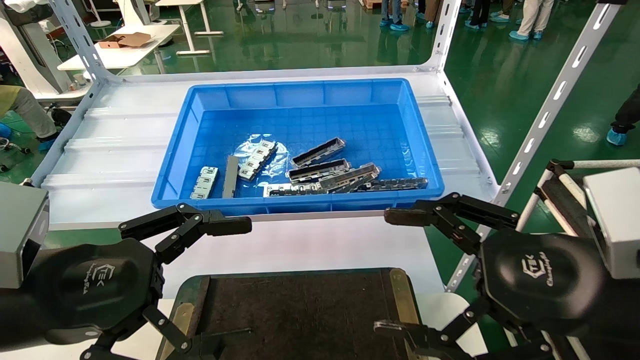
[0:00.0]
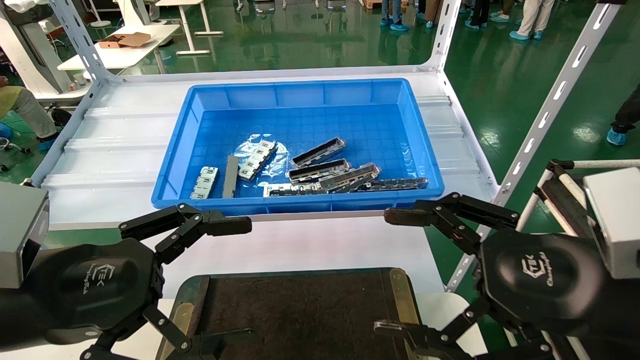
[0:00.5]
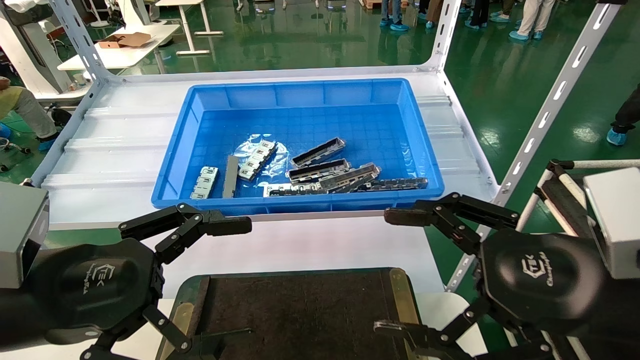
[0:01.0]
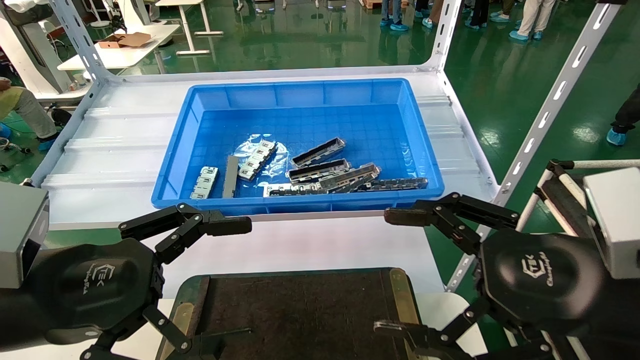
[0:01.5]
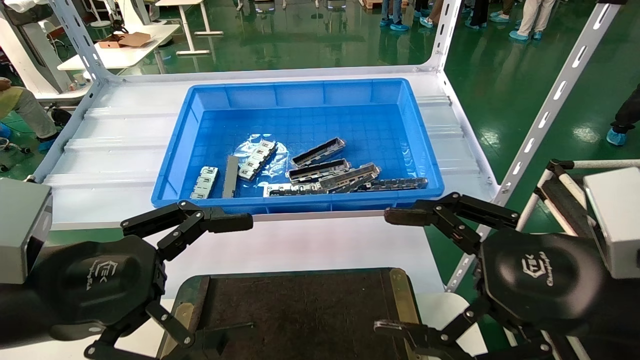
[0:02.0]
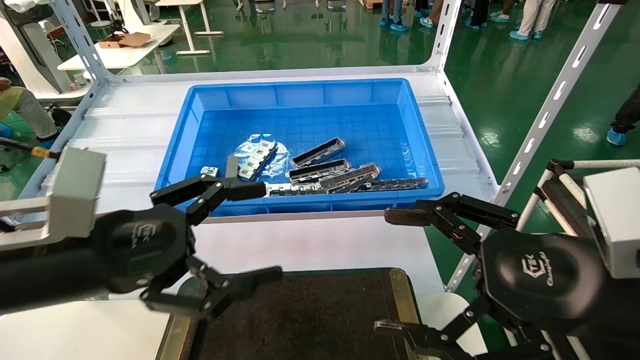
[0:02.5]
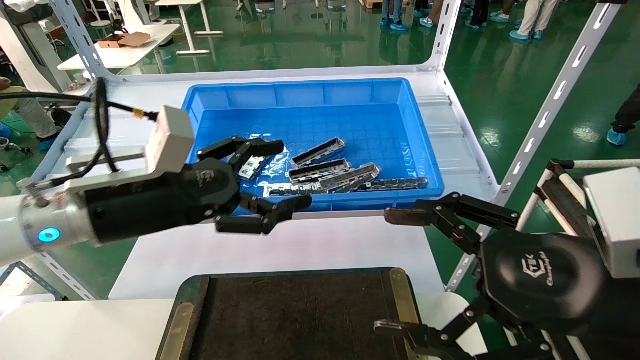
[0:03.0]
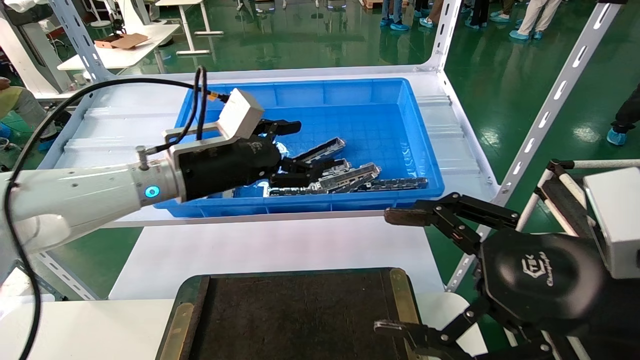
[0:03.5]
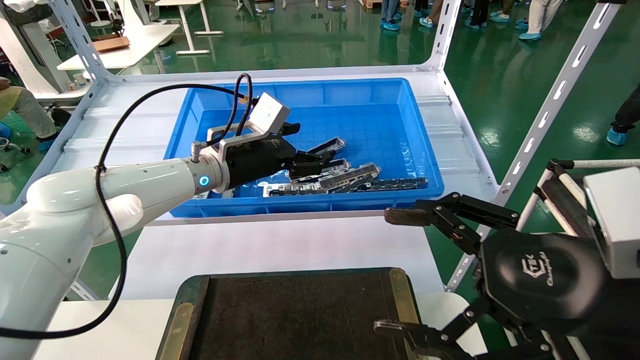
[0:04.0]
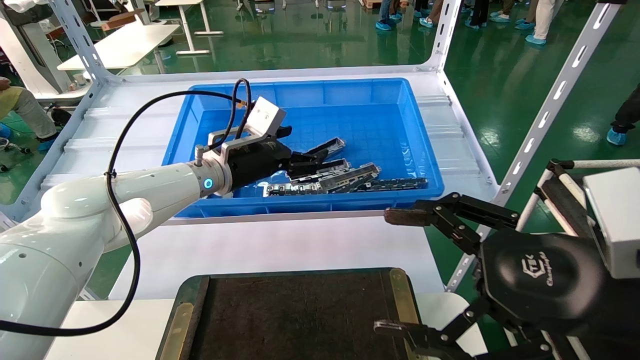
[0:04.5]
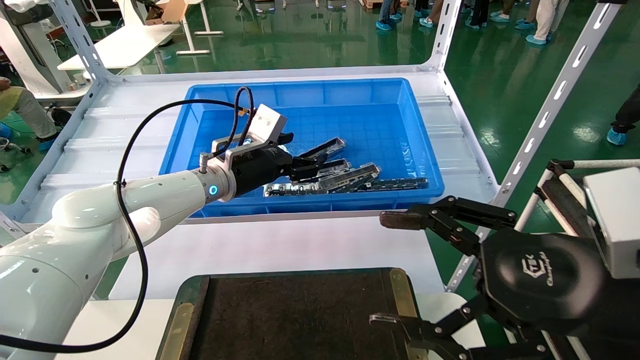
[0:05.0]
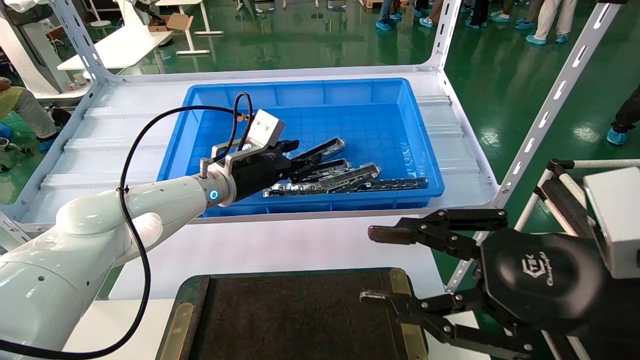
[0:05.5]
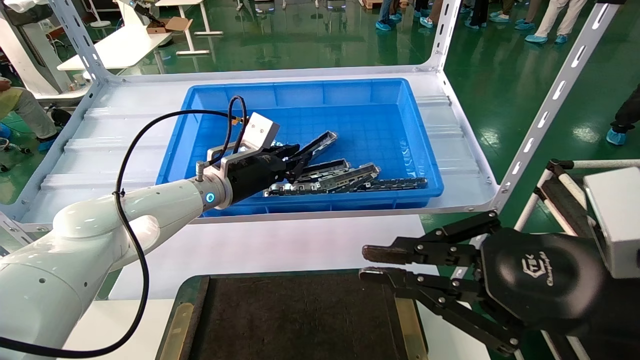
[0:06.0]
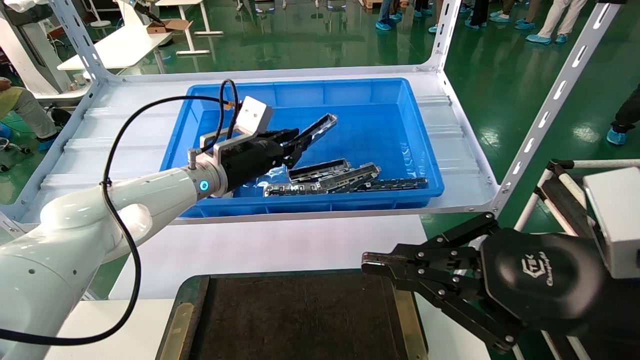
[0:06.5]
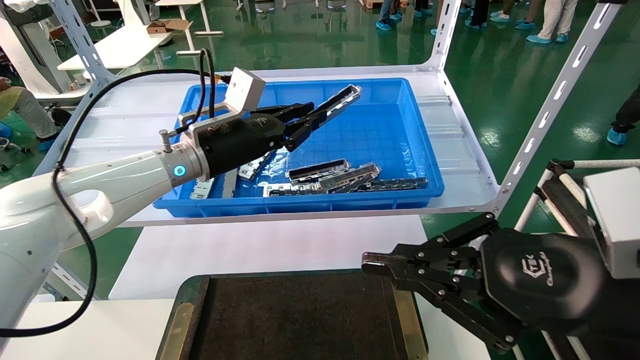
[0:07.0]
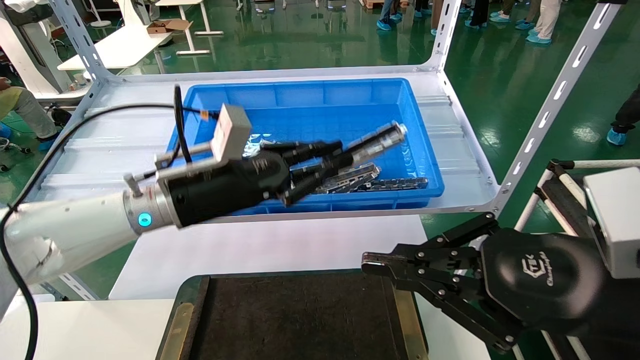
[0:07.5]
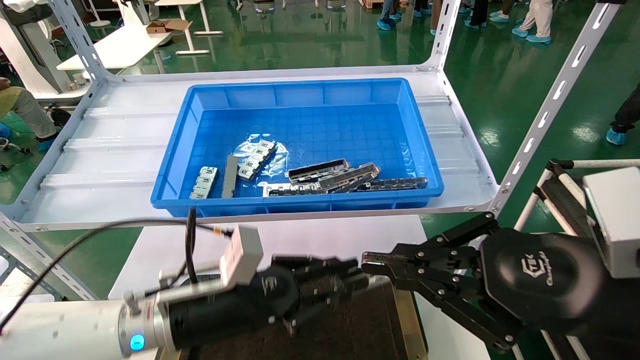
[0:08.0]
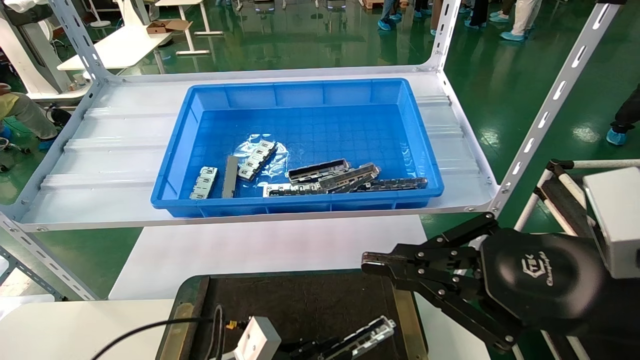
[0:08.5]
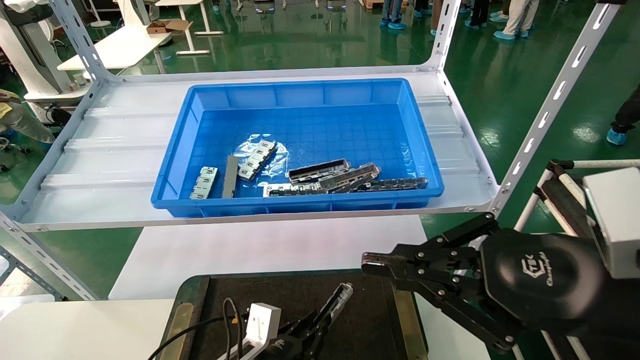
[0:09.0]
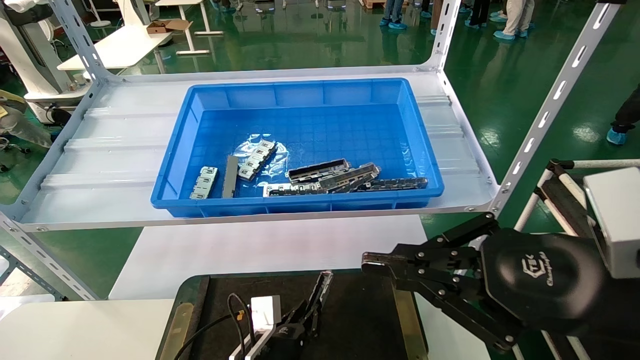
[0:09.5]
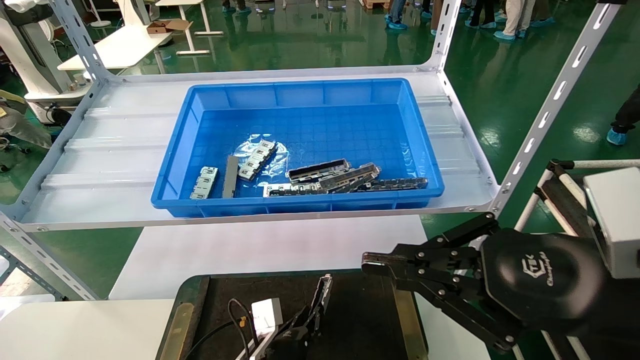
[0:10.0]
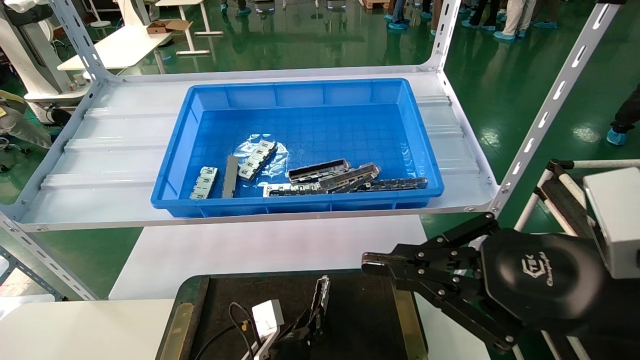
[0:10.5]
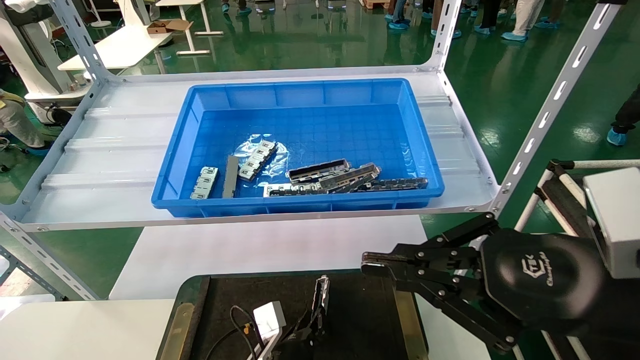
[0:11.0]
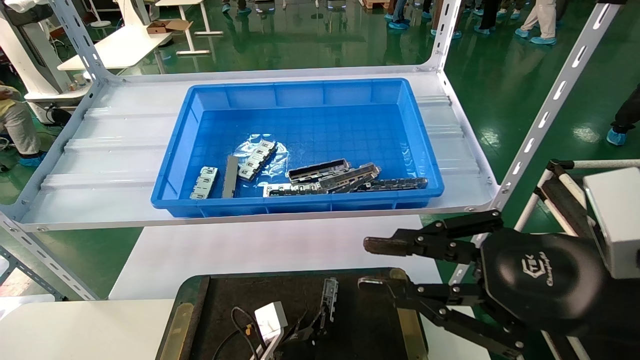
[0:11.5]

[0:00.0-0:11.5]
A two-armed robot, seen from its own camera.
Task of the whole recording: Grasp the part with one hand and place it on the black container.
Step, 0:02.5 to 0:05.5: Pick up the front USB bracket from the feeding area.
Step, 0:06.0 to 0:11.0: Place the front USB bracket into the box.
0:00.0 to 0:02.0: Both grippers stay about where they are.
0:02.0 to 0:04.0: The left gripper is displaced forward and to the right by roughly 30 cm.
0:04.0 to 0:06.0: The left gripper closes up. The right gripper closes.
0:06.0 to 0:07.5: The left gripper heads backward, covering some 10 cm.
0:07.5 to 0:09.5: The left gripper goes about 30 cm downward.
0:09.5 to 0:11.5: There are only small adjustments of the grippers.

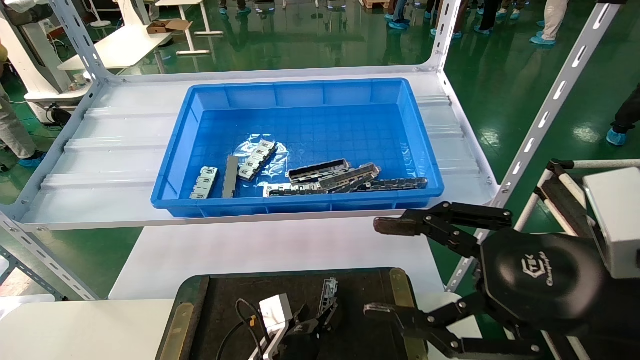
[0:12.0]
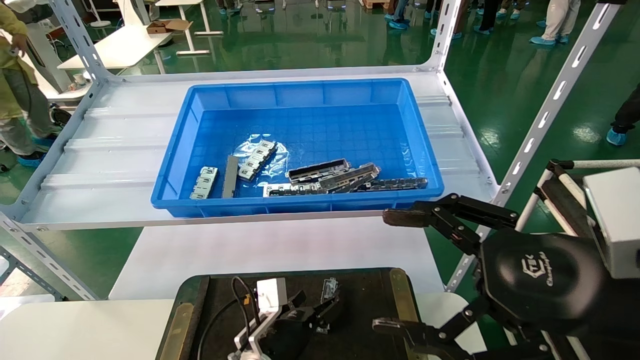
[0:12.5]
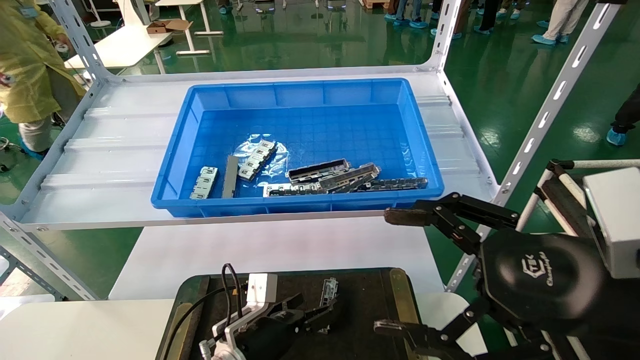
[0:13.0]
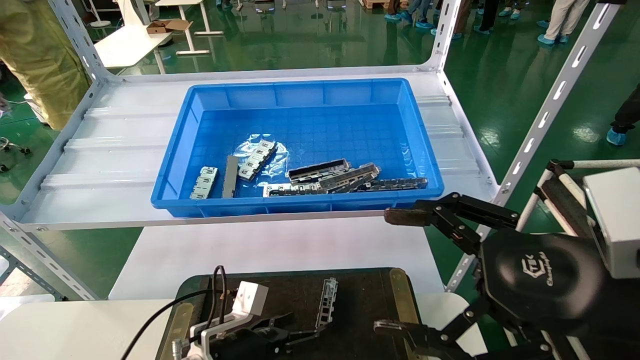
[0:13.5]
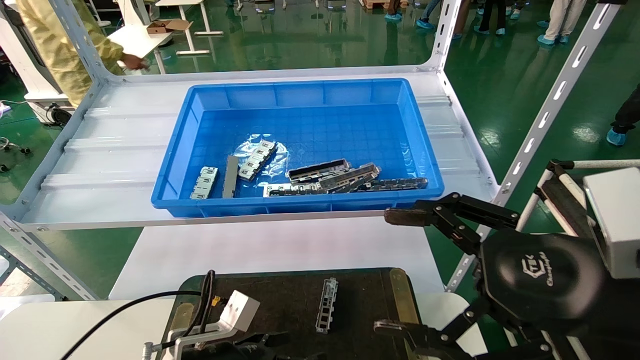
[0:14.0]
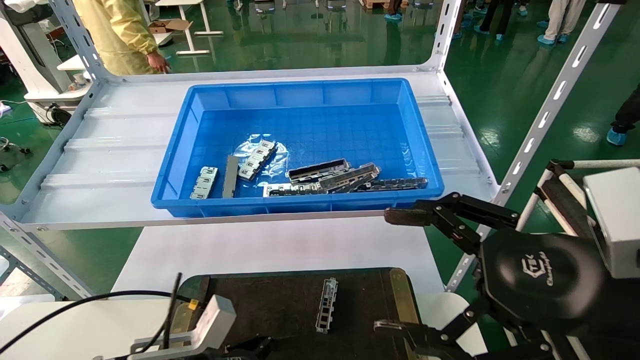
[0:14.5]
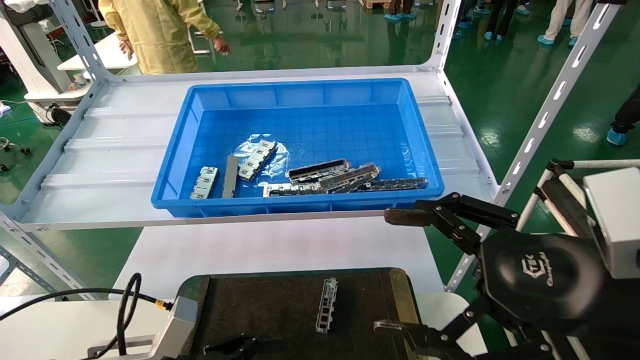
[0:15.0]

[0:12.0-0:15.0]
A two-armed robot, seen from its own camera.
Task of the whole recording: Grasp the part with one hand and place it on the black container.
0:12.0 to 0:13.5: The right gripper opens up. The left gripper shifts roughly 10 cm to the left and upward, and opens up.
0:13.5 to 0:15.0: The left gripper heads to the left, backward and upward, covering roughly 15 cm.

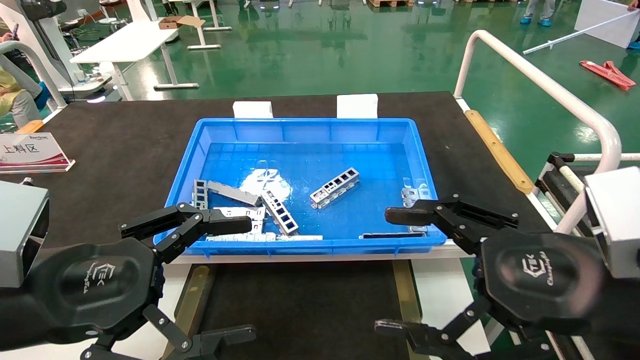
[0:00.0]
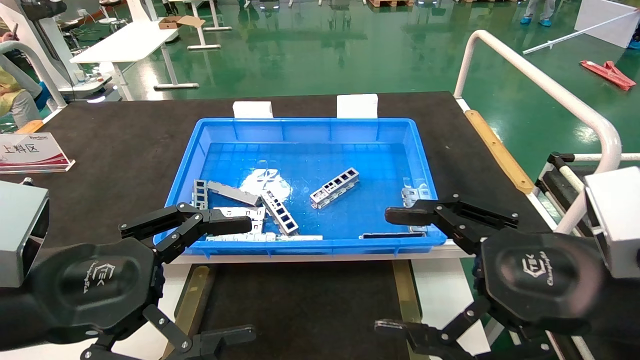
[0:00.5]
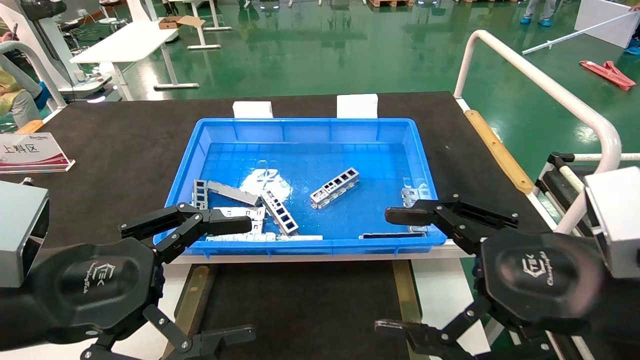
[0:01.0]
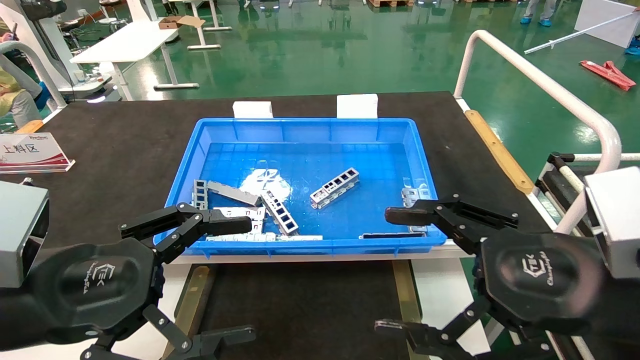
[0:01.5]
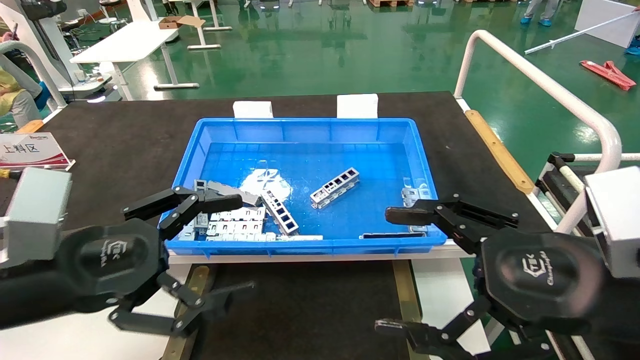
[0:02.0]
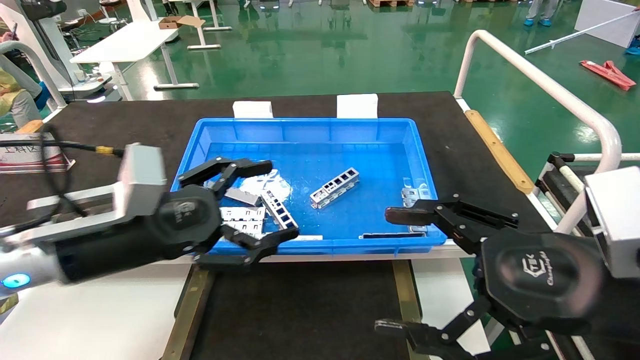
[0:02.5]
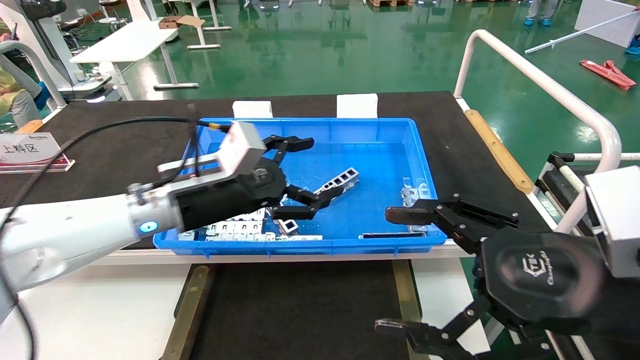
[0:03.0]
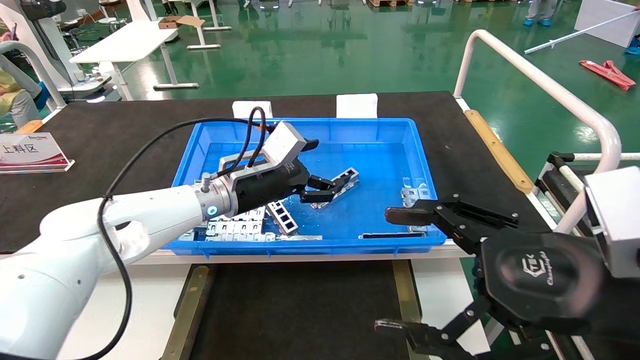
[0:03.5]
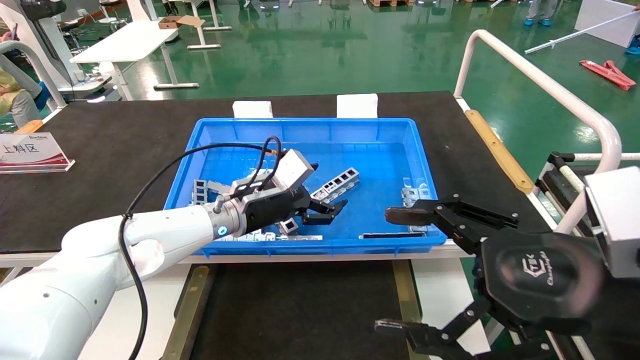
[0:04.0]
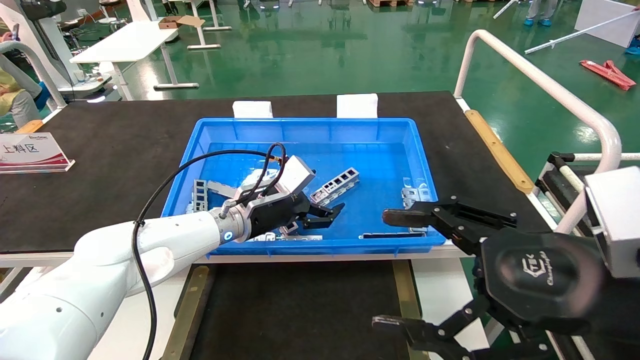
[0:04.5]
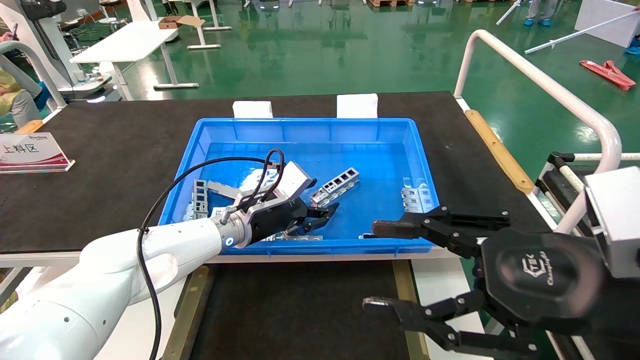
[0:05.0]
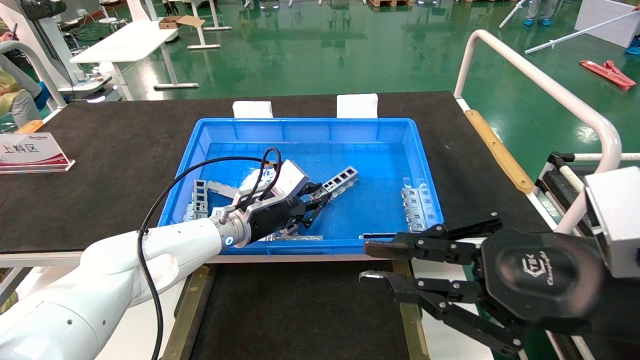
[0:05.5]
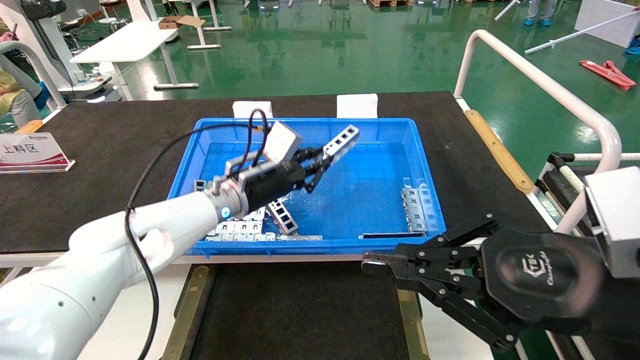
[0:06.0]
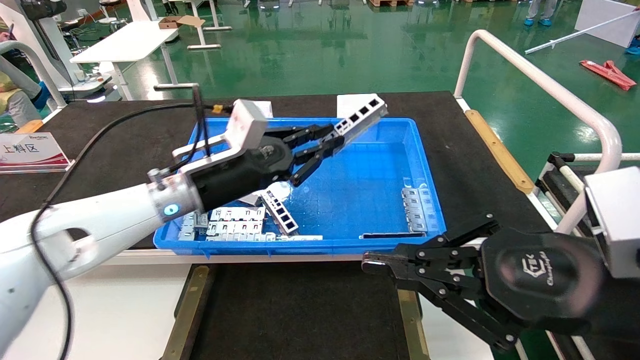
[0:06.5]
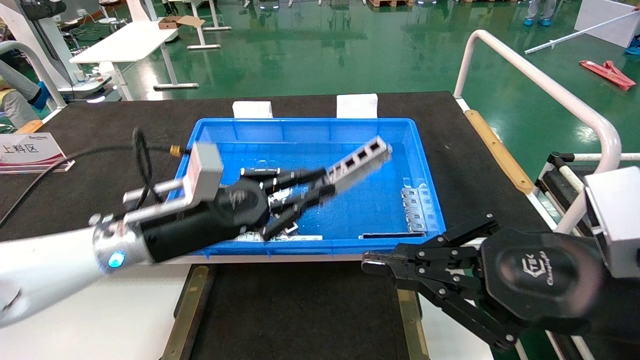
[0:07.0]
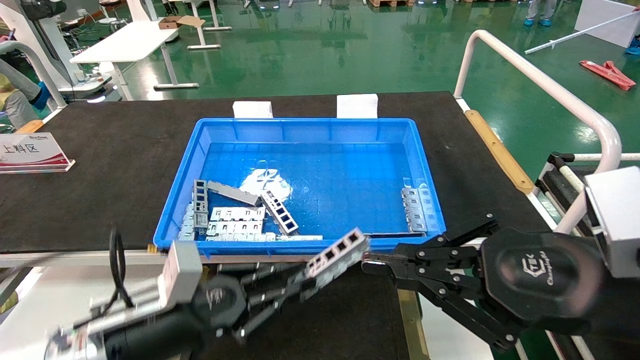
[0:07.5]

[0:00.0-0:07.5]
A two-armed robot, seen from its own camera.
Task of the whole recording: Grasp the part with one hand and place it on the black container.
Step, 0:02.0 to 0:05.5: Pick up the front USB bracket from the feeding area.
0:00.0 to 0:02.0: The grippers stay close to where they were, moving slightly.
0:02.0 to 0:04.0: The left gripper goes approximately 30 cm forward and to the right.
0:04.0 to 0:05.5: The left gripper closes; the right gripper closes up.
0:05.5 to 0:07.5: The left gripper moves backward and to the left, some 20 cm.
